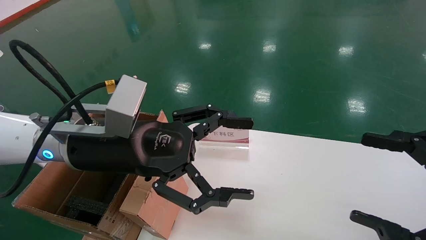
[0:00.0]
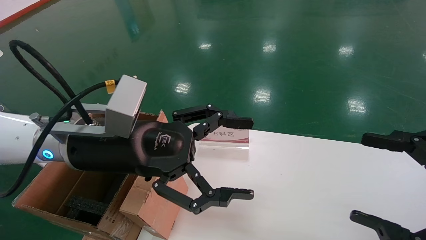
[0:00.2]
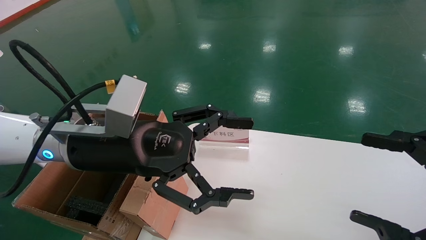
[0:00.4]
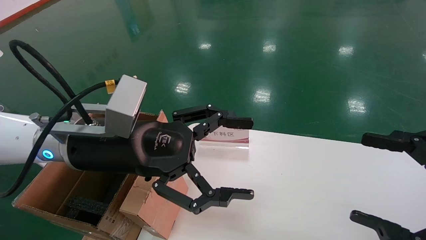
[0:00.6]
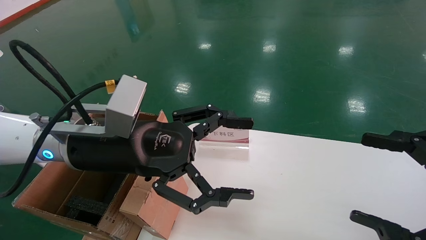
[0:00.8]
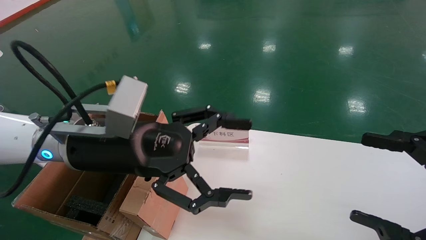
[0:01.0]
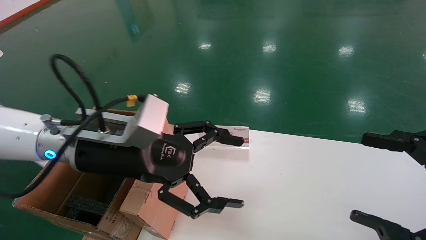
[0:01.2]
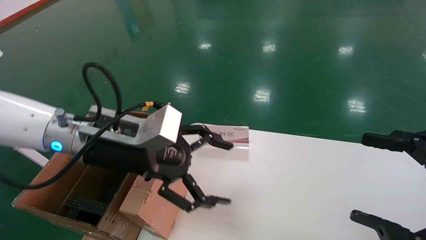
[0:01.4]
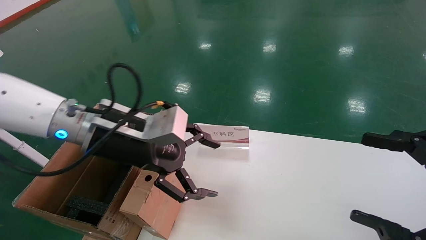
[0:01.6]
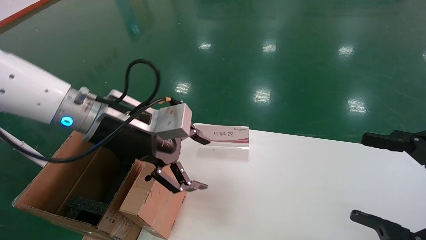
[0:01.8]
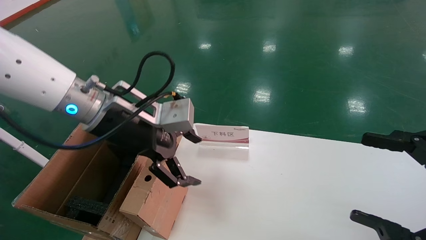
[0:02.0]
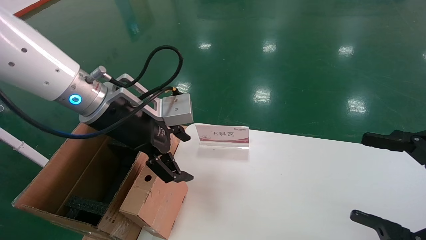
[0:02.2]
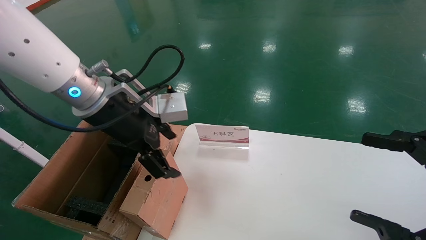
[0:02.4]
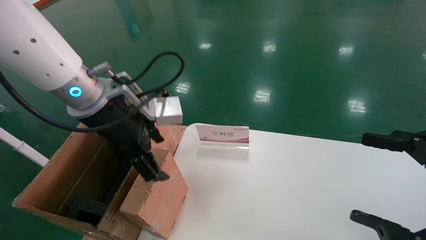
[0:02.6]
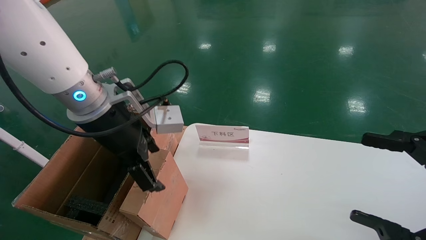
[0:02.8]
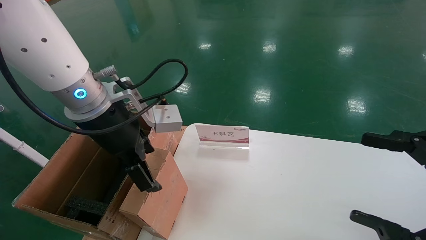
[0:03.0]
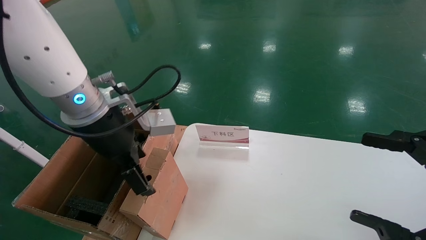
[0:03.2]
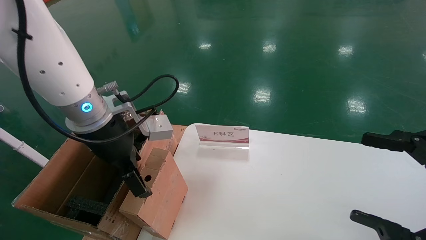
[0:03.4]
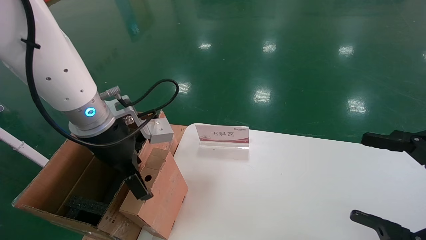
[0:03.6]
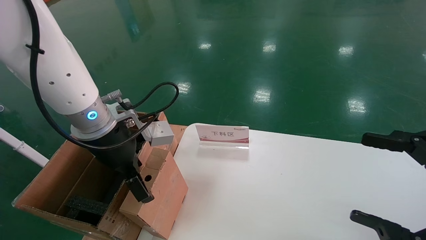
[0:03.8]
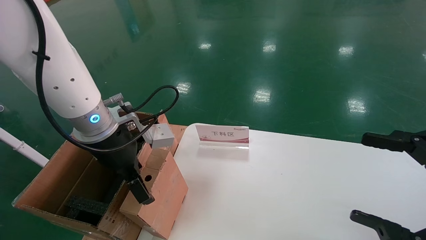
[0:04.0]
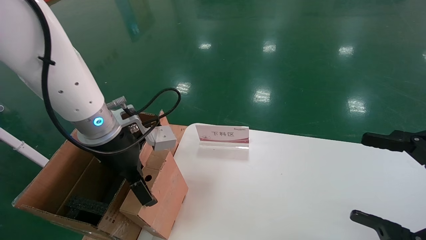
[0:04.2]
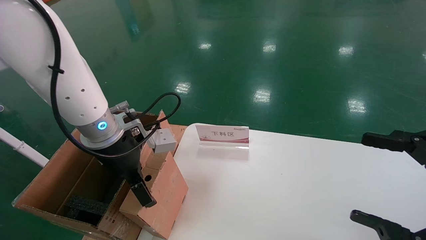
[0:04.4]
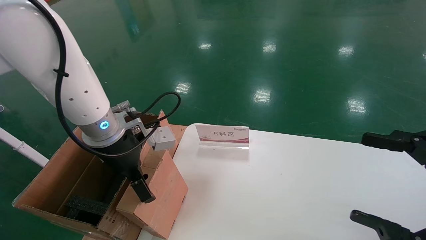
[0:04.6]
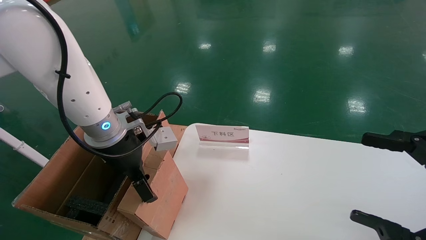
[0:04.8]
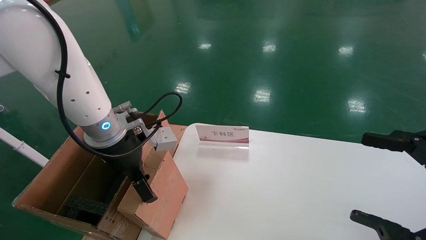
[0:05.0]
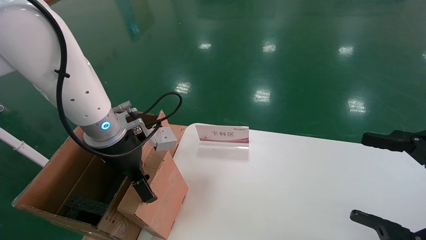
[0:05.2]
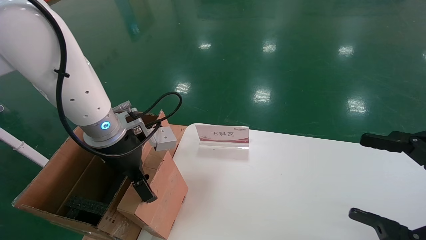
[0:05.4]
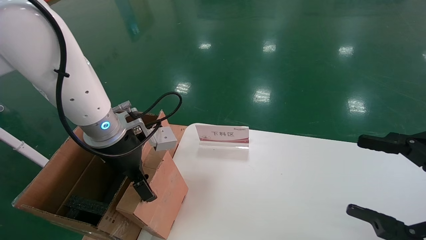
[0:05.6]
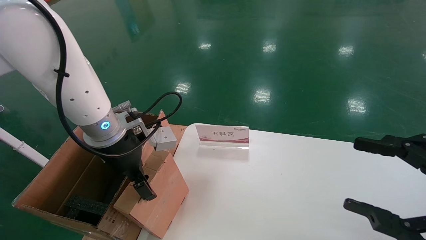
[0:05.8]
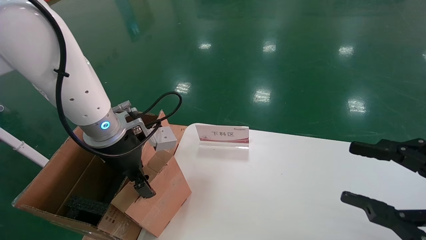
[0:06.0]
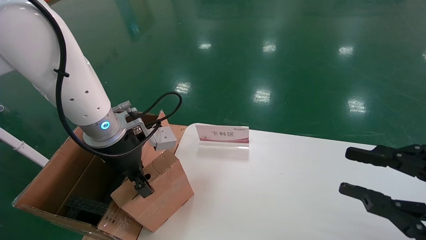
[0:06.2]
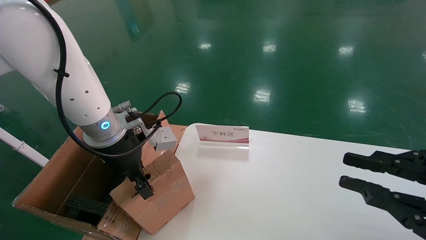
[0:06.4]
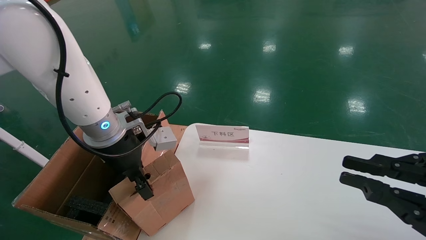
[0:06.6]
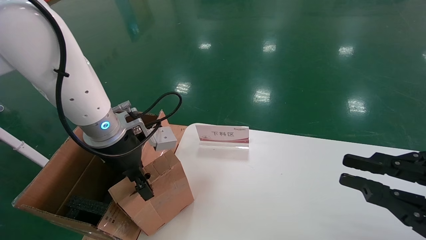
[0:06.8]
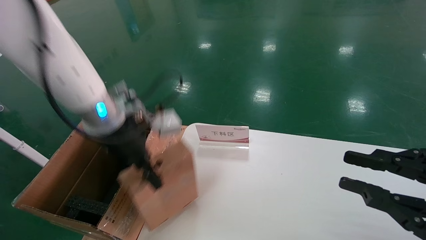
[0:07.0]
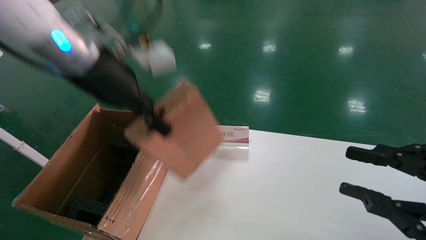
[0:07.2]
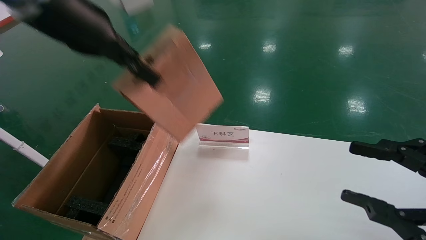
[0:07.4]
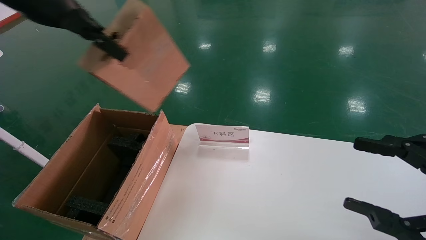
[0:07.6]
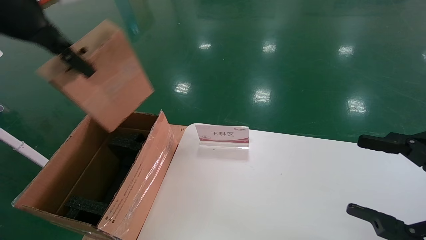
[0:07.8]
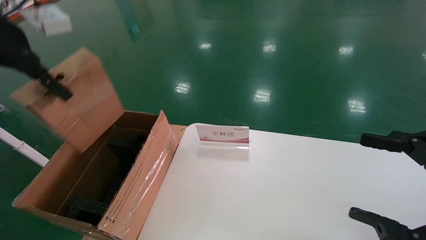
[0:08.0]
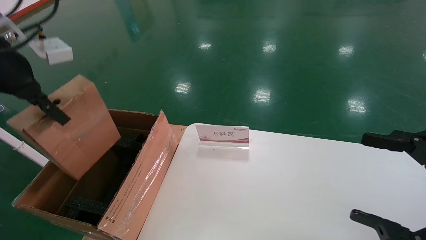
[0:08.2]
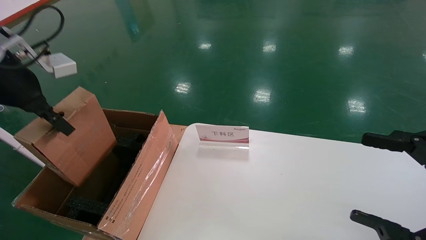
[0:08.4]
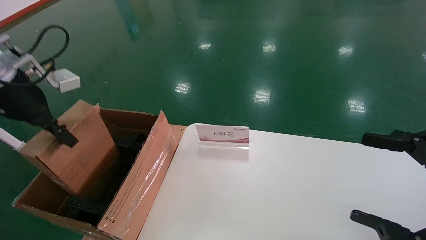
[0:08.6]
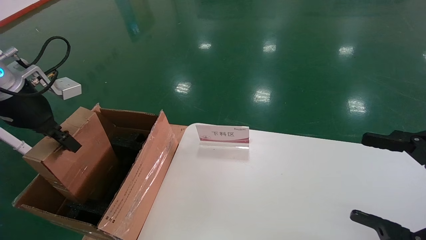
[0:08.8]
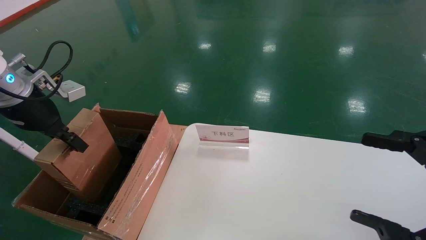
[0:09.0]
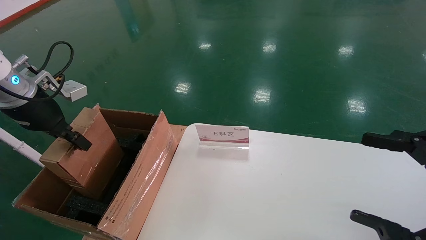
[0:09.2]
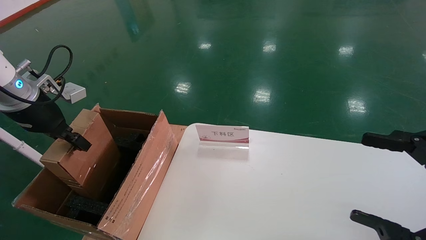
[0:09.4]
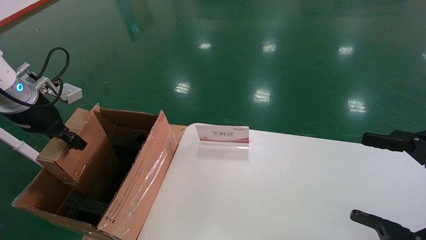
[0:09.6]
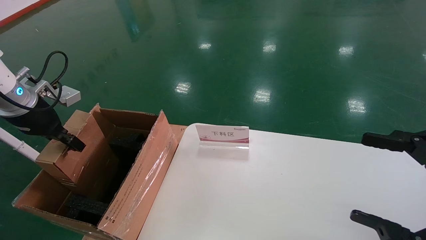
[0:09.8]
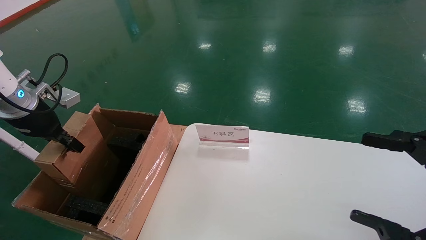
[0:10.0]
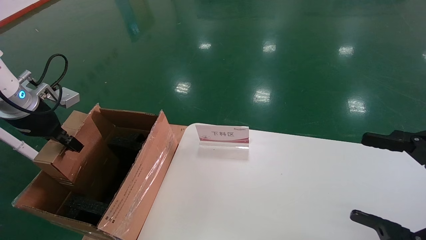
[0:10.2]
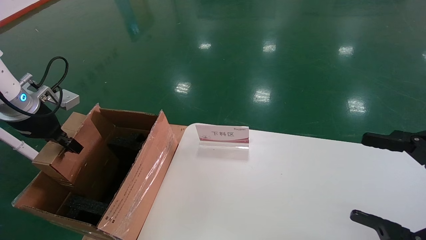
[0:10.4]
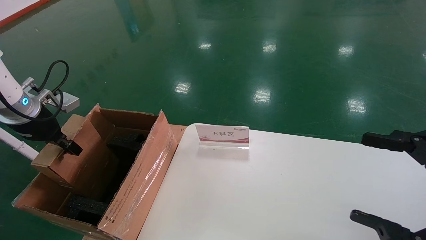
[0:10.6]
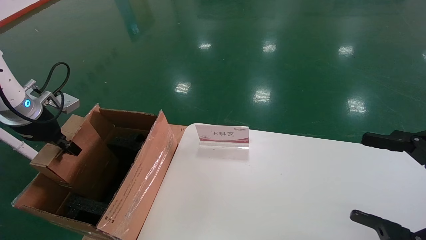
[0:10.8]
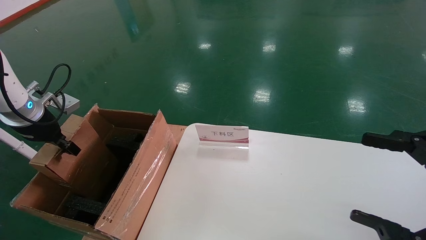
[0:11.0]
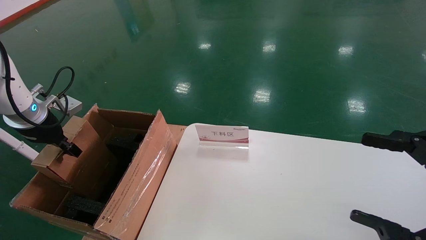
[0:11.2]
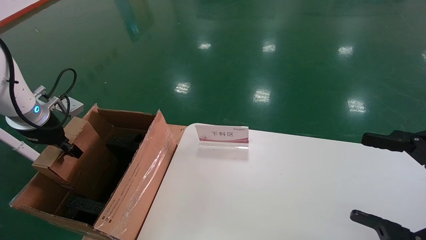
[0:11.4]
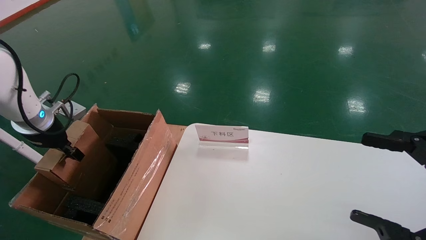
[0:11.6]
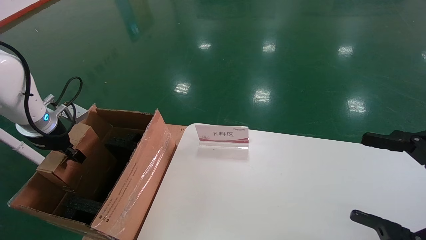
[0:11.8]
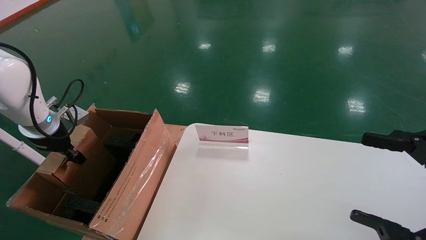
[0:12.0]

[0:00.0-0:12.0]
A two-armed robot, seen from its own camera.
Task of the whole recording: pick up the small cardboard box and load it into the large cardboard box.
Step, 0:01.2 to 0:06.2: Pick up the mouse and power cord box.
0:03.0 to 0:04.4: The left gripper goes approximately 5 cm downward.
0:04.4 to 0:06.0: The left gripper closes up. The right gripper closes up.
0:06.0 to 0:07.6: The right gripper closes, then reopens, while the left gripper heads upward, covering about 20 cm, and closes its fingers.
0:07.6 to 0:09.0: The right gripper opens. Meanwhile the left gripper is displaced downward and to the left by about 20 cm.
0:09.0 to 0:10.4: The left gripper changes place by approximately 5 cm.
0:10.4 to 0:12.0: The left gripper goes about 5 cm downward.

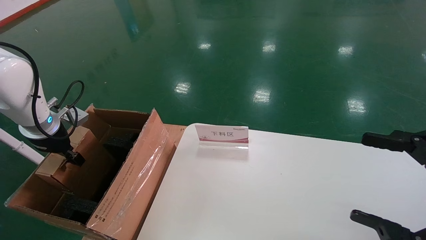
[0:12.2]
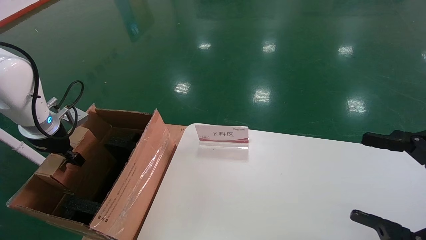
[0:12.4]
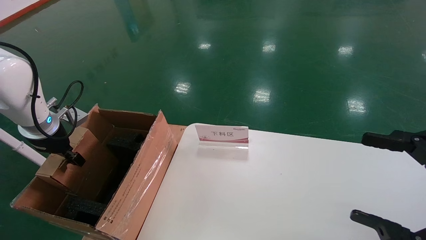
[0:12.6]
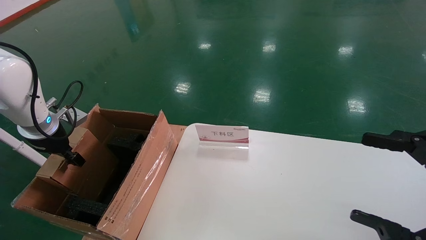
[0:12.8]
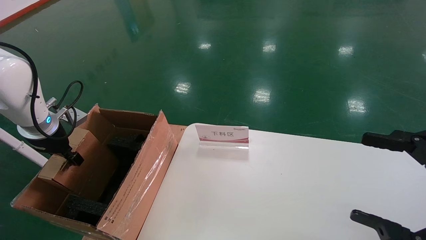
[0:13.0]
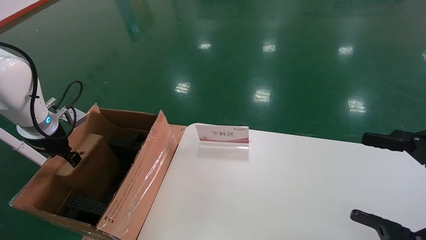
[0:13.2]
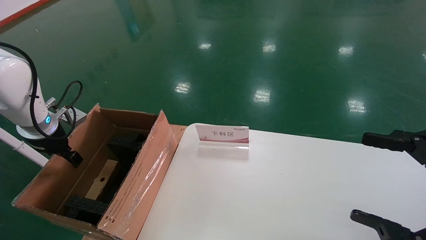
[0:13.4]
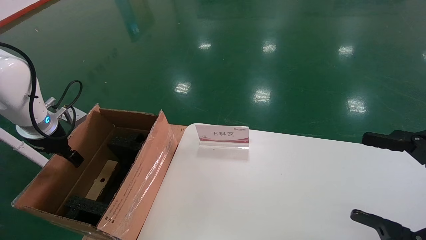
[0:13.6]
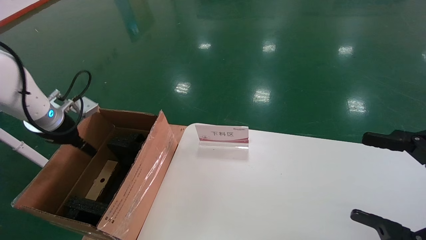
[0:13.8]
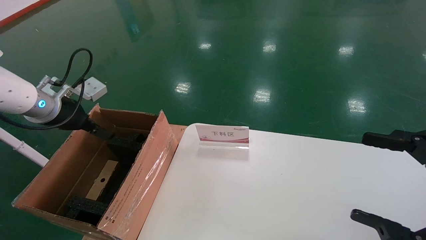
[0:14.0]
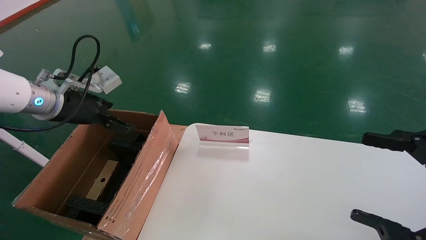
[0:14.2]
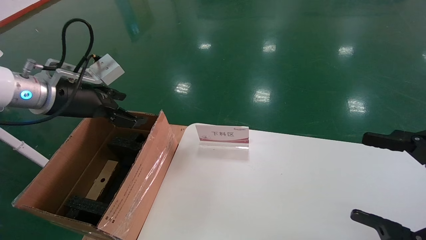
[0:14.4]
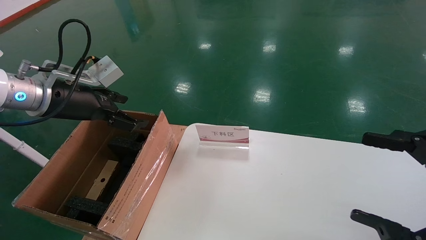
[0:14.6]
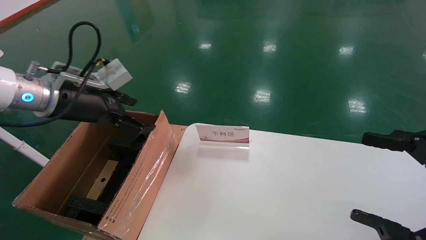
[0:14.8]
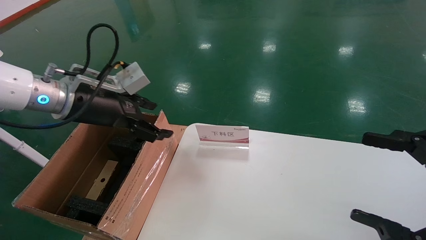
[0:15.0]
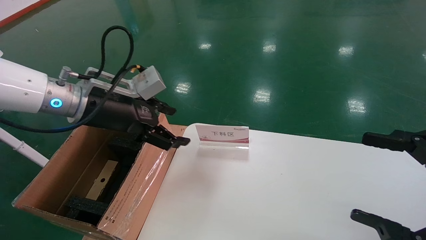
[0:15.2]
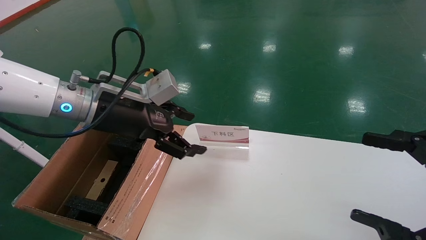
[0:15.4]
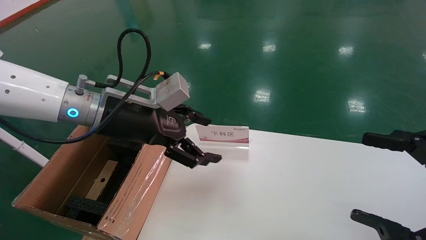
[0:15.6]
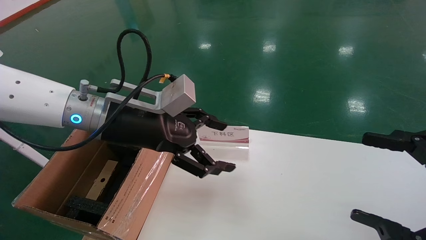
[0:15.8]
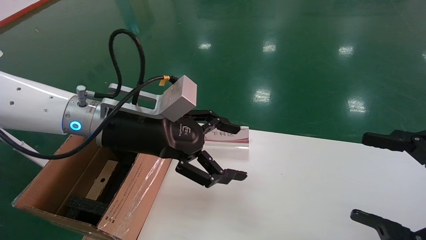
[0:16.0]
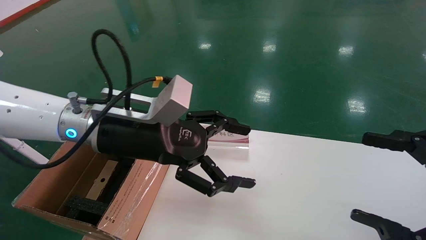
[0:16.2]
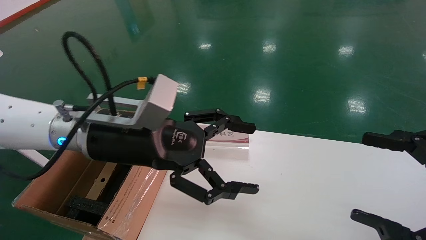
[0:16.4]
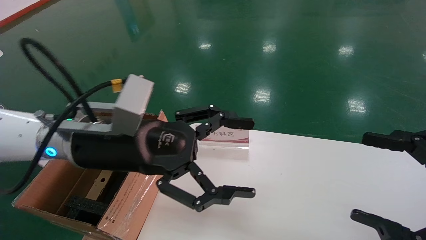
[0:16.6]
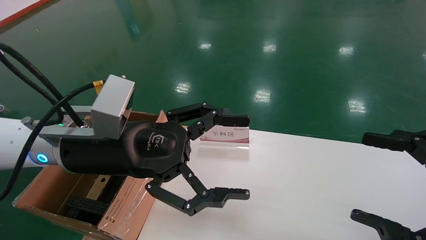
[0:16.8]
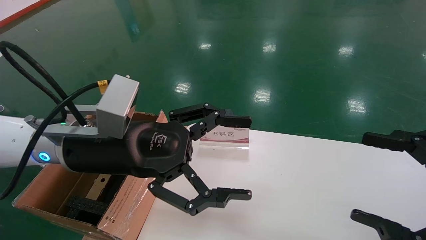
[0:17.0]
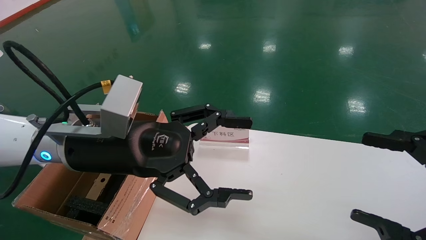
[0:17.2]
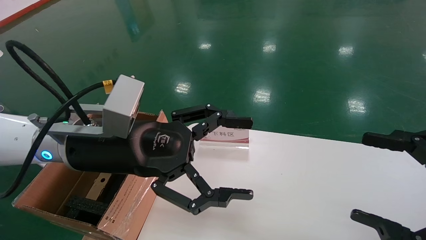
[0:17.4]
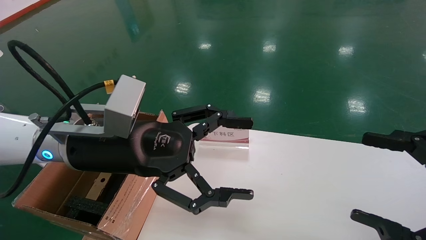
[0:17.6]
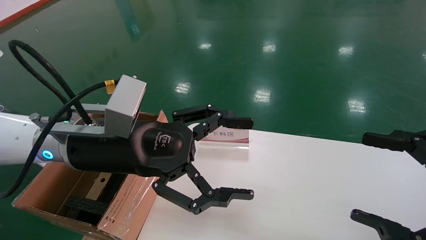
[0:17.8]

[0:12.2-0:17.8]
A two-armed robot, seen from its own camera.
Task of the whole recording: pick up the small cardboard box and load it into the large cardboard box.
0:12.2 to 0:13.6: The left gripper opens up.
0:13.6 to 0:15.0: The left gripper is displaced to the right and upward by about 15 cm.
0:15.0 to 0:16.4: The left gripper is displaced to the right by about 10 cm.
0:16.4 to 0:17.8: The grippers stay close to where they were, moving slightly.
